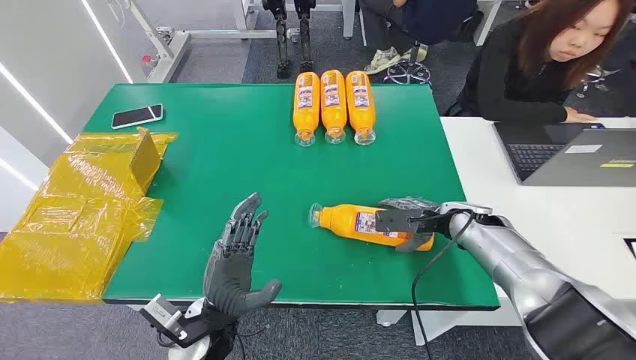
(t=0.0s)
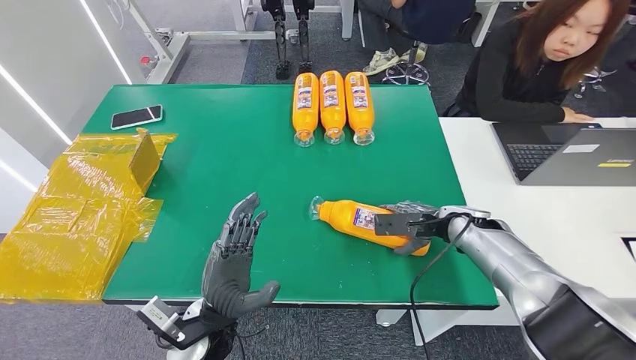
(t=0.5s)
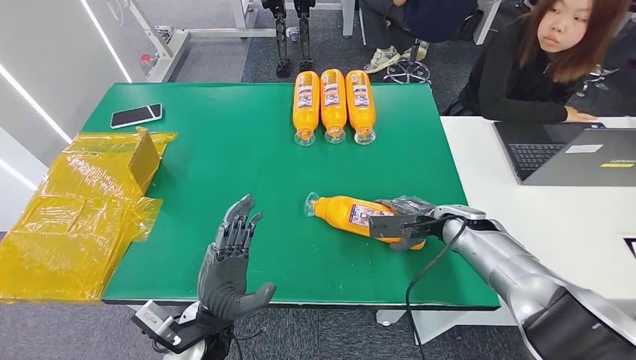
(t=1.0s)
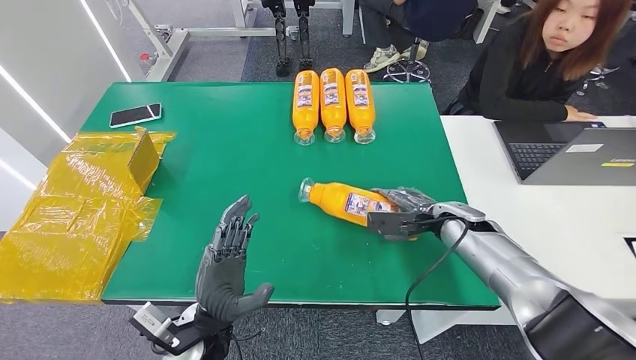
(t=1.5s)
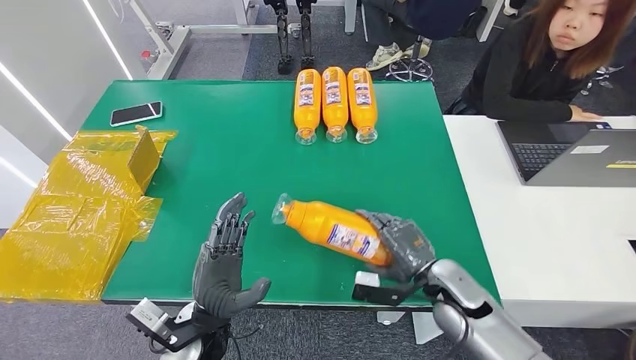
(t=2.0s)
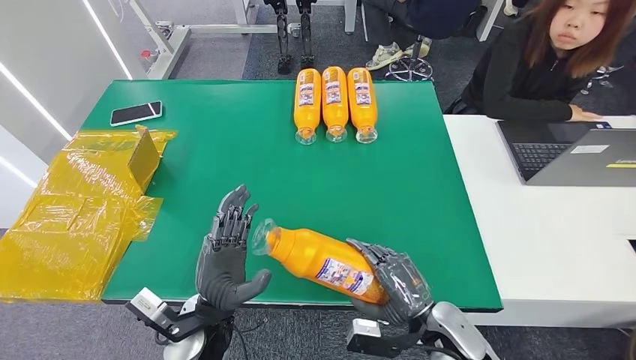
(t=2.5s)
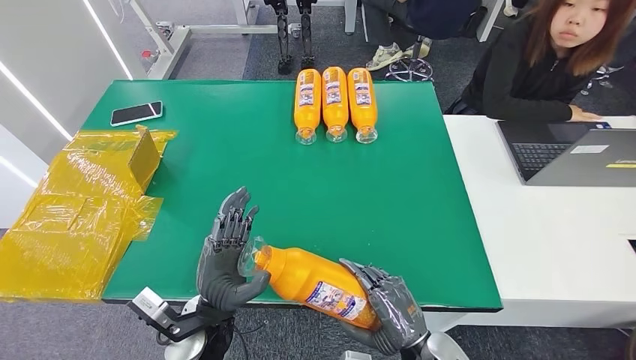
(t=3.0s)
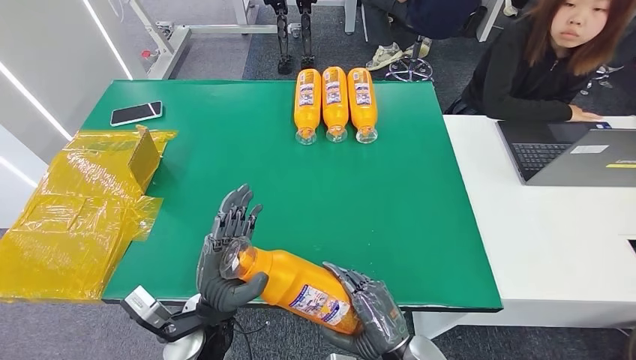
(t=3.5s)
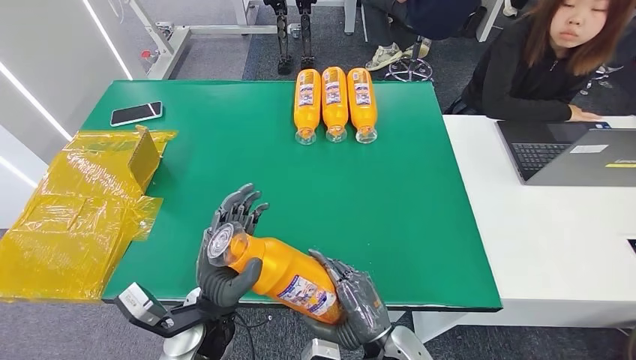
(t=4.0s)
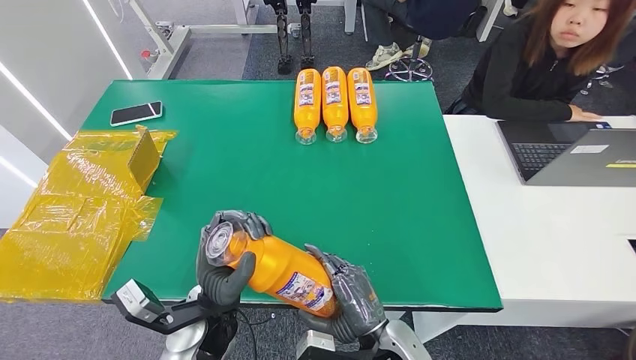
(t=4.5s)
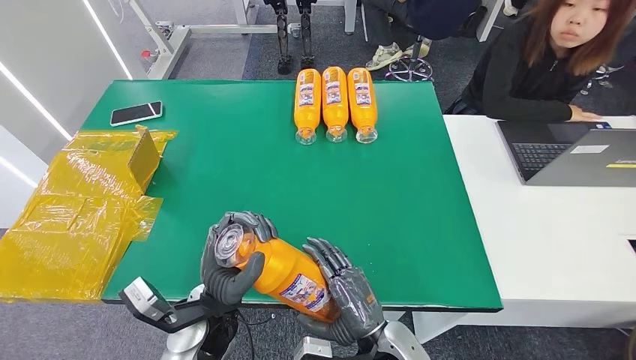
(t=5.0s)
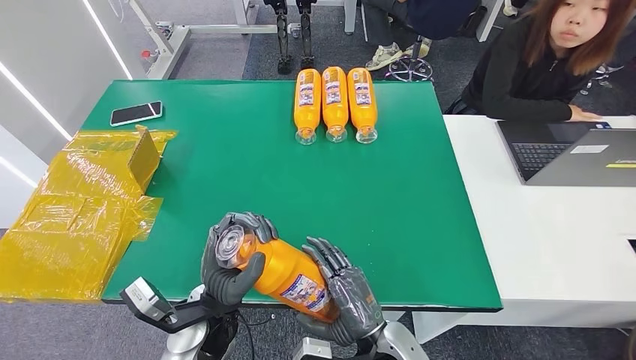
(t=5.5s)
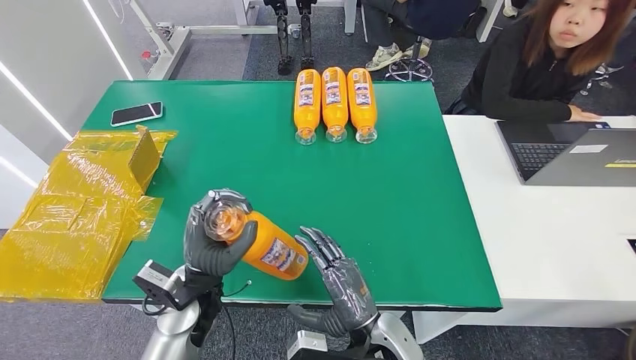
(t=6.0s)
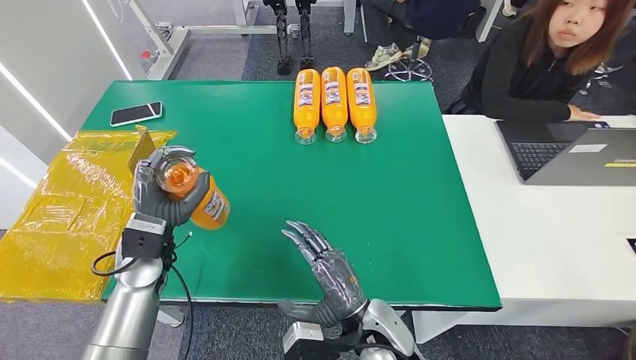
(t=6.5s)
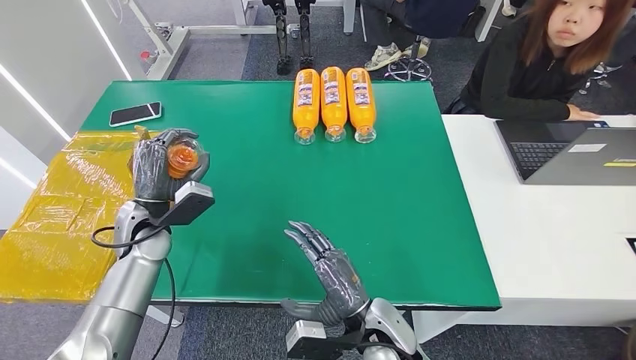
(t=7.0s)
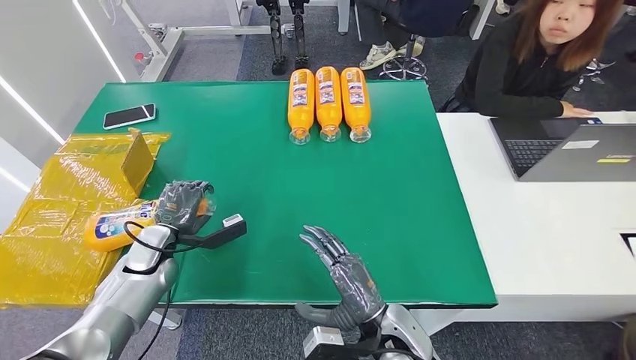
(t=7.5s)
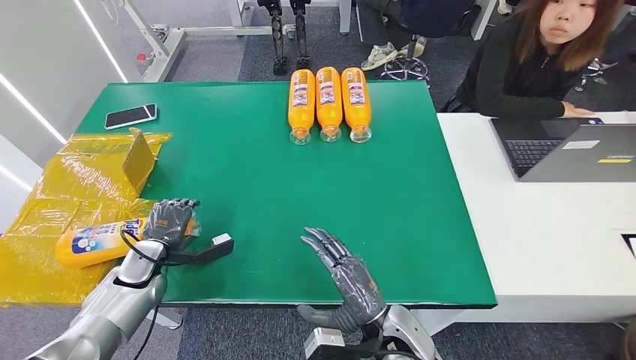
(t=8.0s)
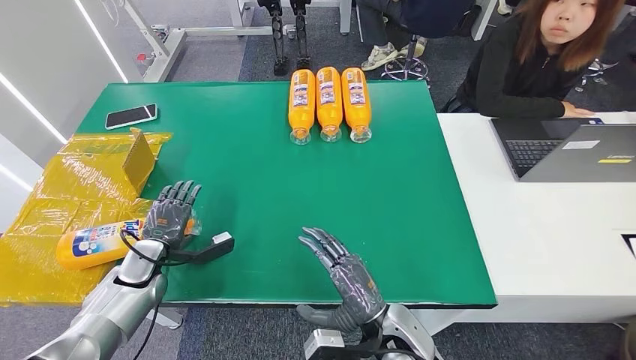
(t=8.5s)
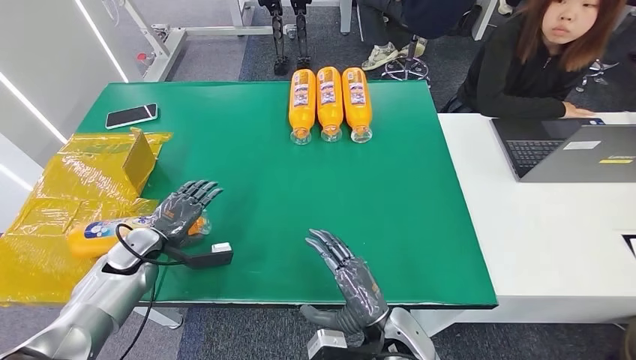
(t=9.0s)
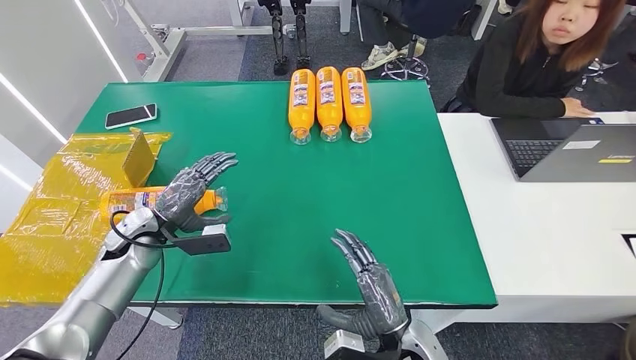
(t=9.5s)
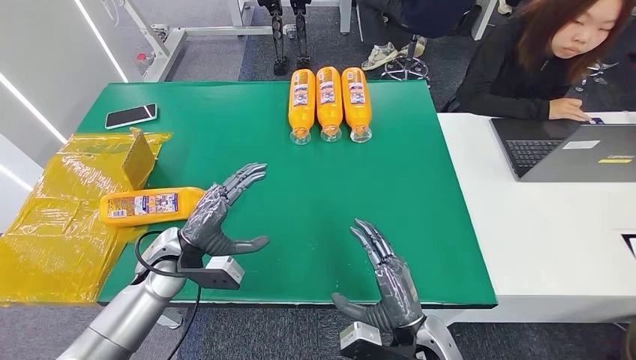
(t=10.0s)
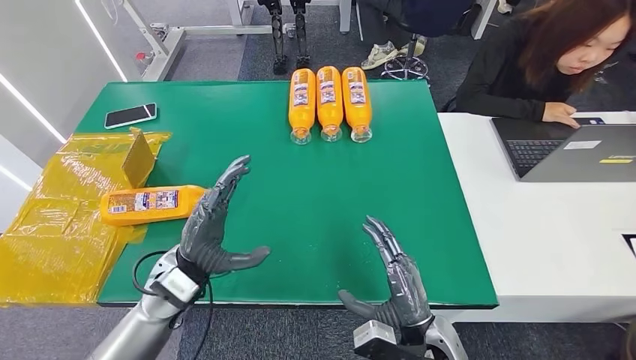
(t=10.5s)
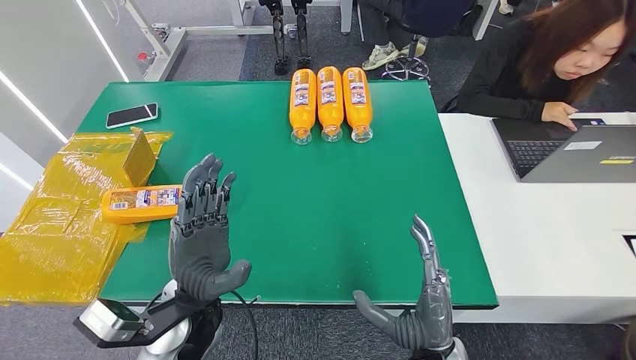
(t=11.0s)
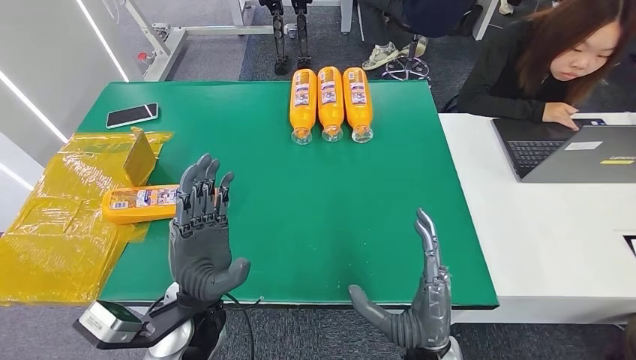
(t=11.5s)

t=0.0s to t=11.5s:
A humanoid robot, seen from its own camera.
Step, t=0.0s to t=3.5s: Pick up the bottle from the table.
Step, t=4.0s to t=11.5s: Turn the bottle to the front side.
t=2.0s to t=4.0s: The right hand heads to the left and backward, covering about 15 cm.
t=7.5s to t=9.5s: The left hand shifts by roughly 5 cm.
t=9.5s to t=11.5s: The right hand goes about 5 cm upward; the left hand travels to the right and backward by approximately 25 cm.

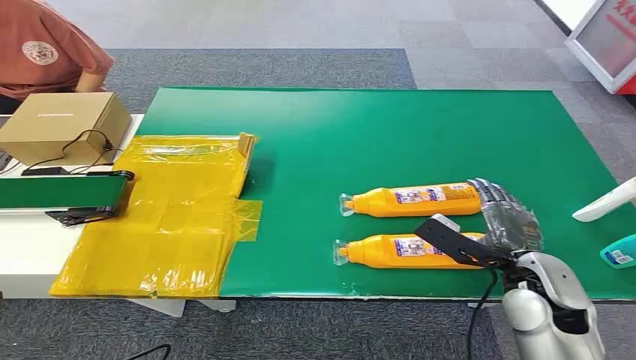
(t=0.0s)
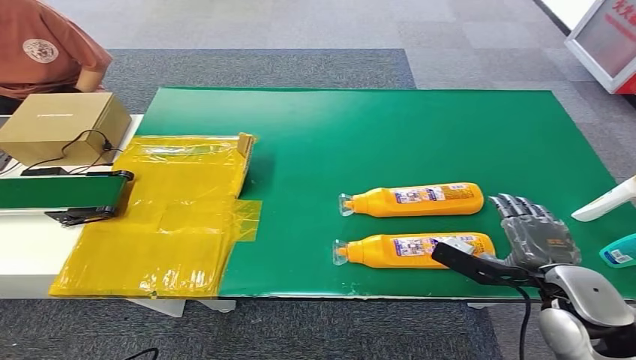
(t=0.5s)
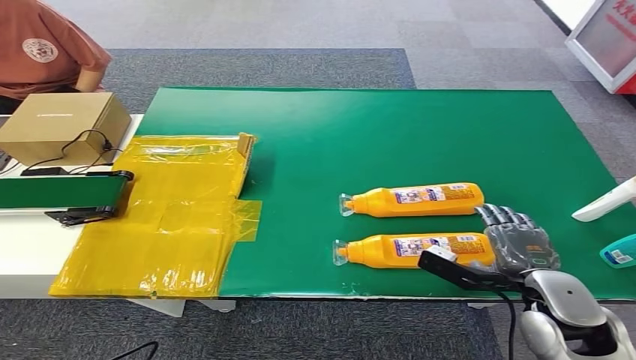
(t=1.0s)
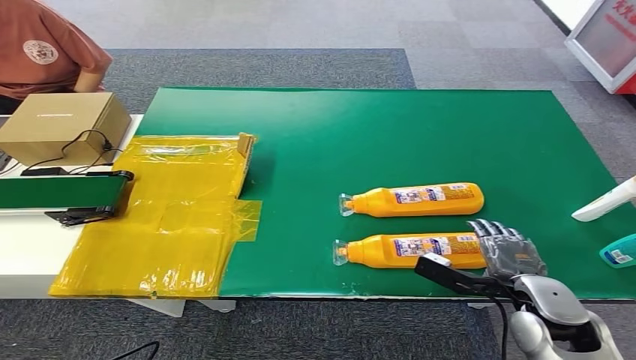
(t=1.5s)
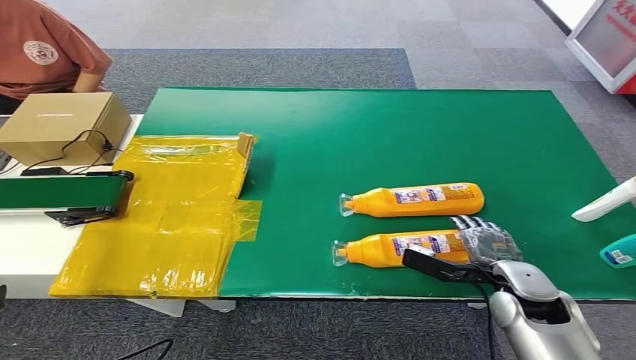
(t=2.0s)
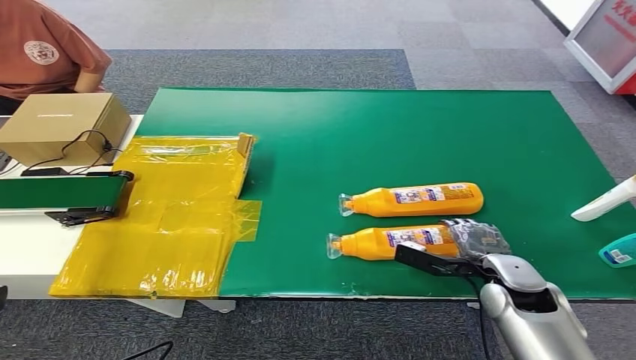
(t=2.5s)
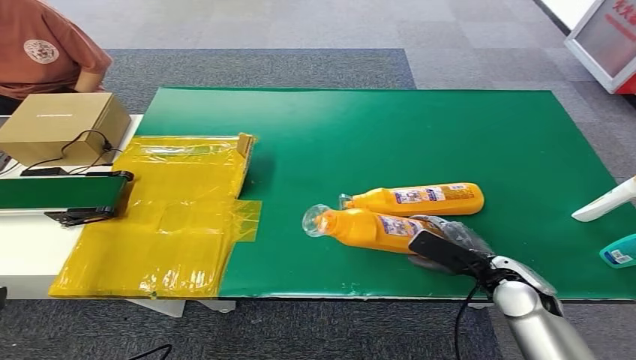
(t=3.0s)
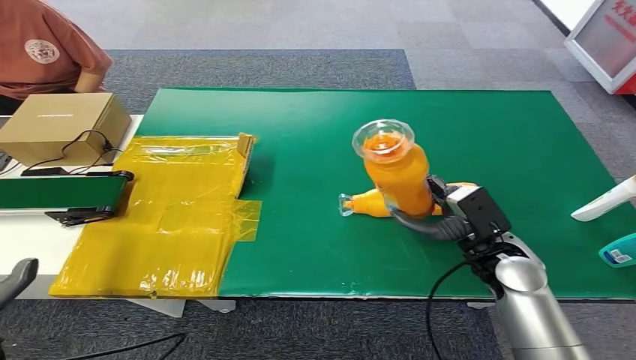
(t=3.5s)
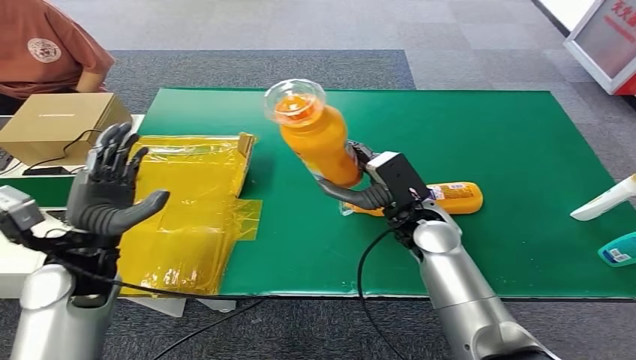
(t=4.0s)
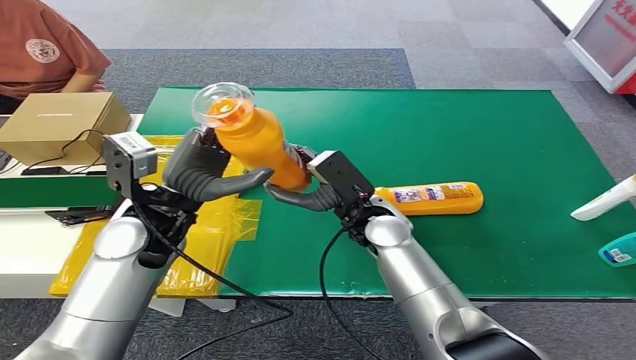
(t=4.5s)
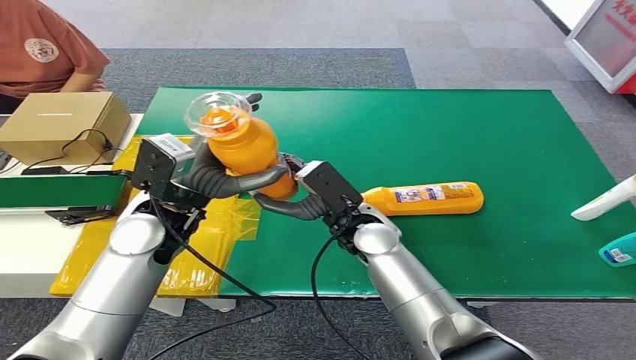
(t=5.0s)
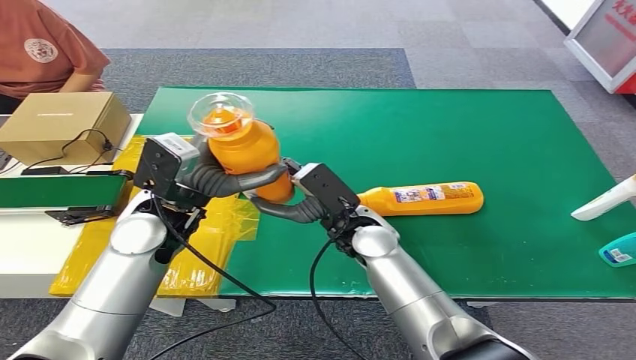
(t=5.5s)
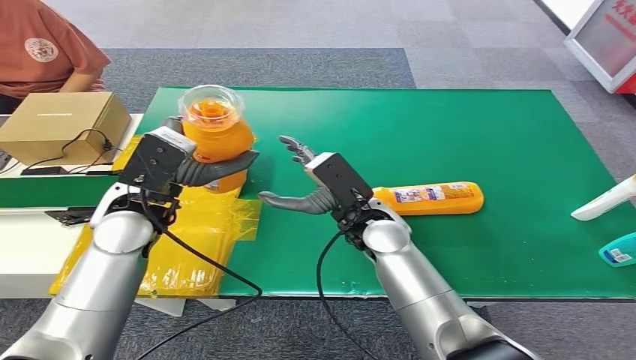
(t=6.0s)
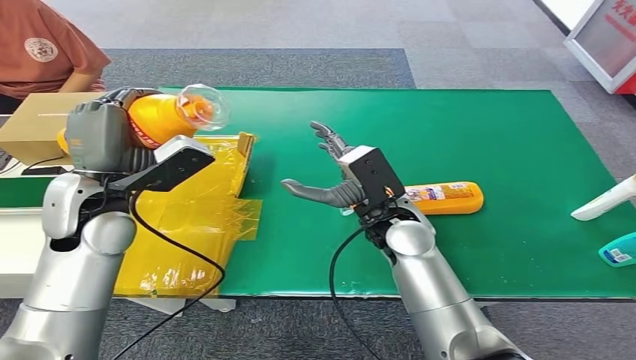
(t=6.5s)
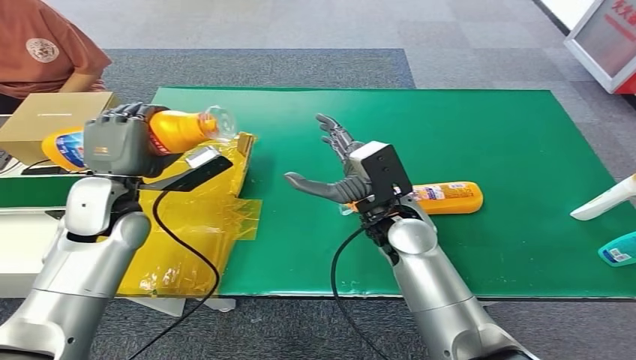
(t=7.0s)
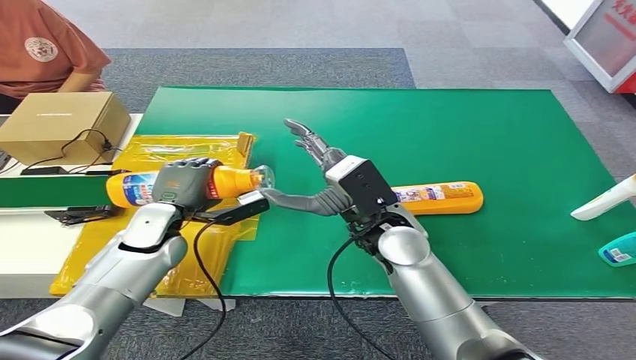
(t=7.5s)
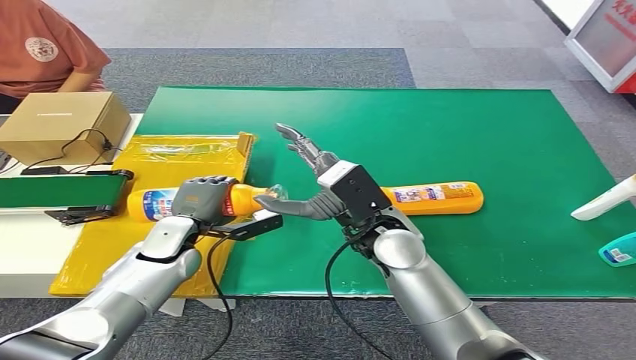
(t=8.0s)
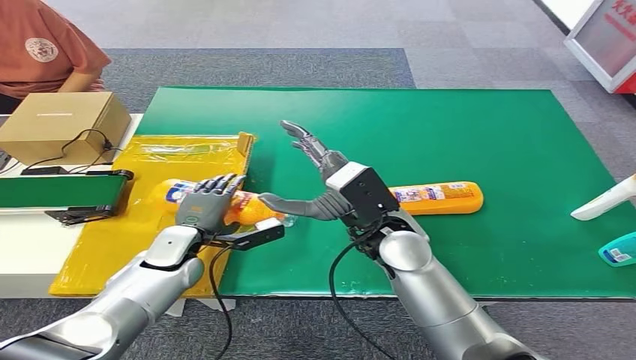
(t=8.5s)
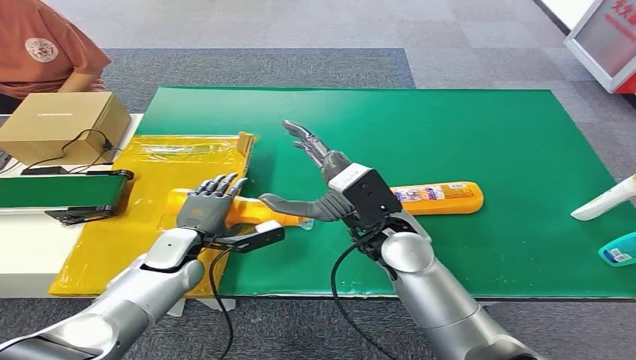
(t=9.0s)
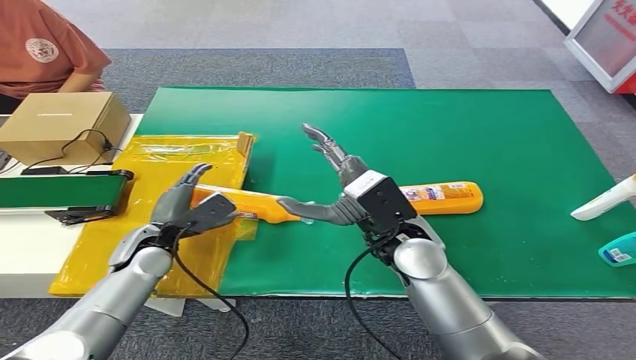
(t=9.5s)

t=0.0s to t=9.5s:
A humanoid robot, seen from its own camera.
Step, t=0.0s to t=3.0s: Pick up the bottle from the table.
Step, t=3.5s to t=9.5s: Turn the bottle to the front side.
t=7.5s to t=9.5s: The left hand ends up about 5 cm from where it was.
